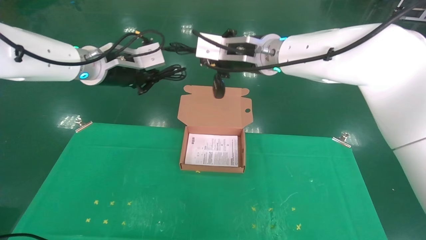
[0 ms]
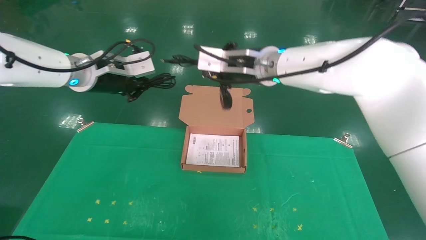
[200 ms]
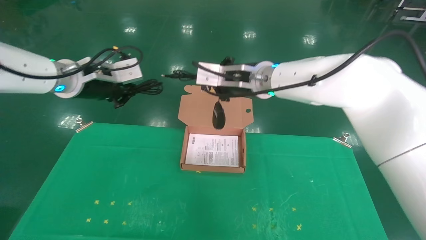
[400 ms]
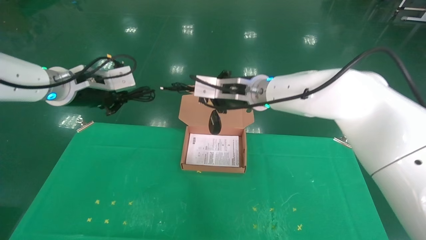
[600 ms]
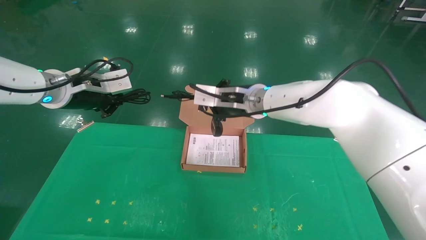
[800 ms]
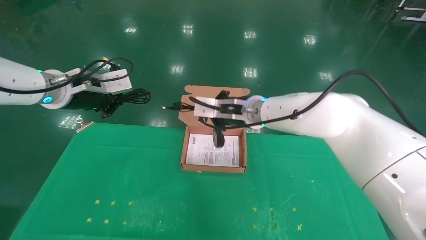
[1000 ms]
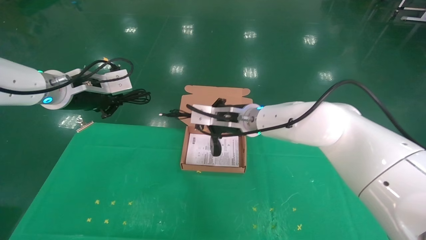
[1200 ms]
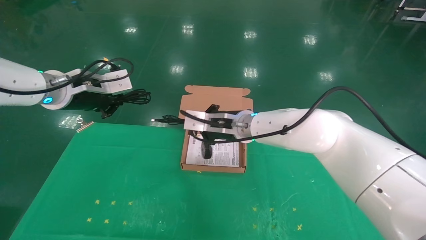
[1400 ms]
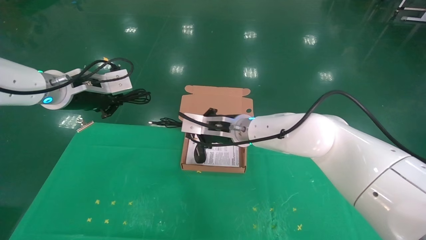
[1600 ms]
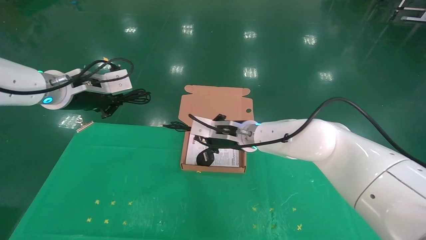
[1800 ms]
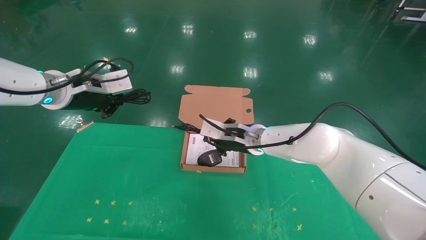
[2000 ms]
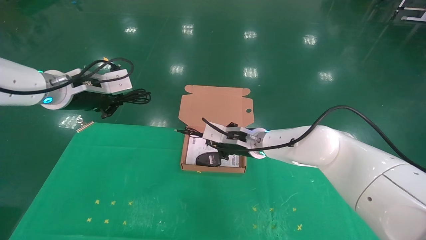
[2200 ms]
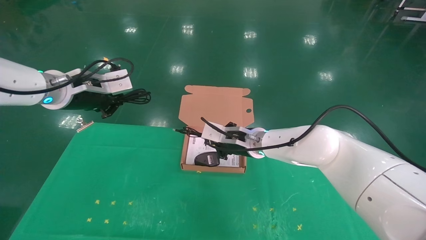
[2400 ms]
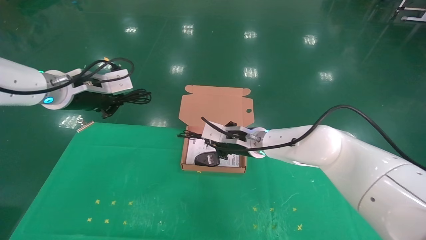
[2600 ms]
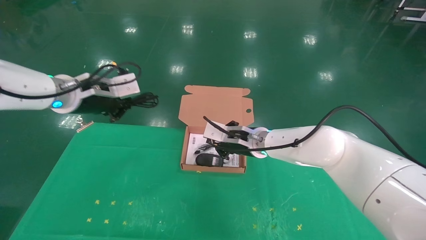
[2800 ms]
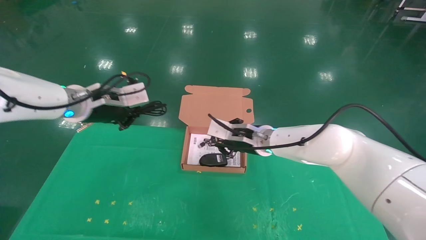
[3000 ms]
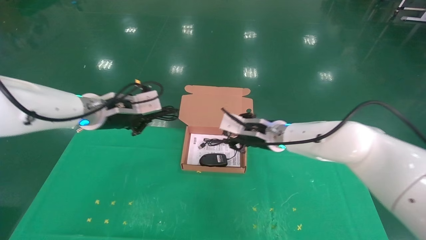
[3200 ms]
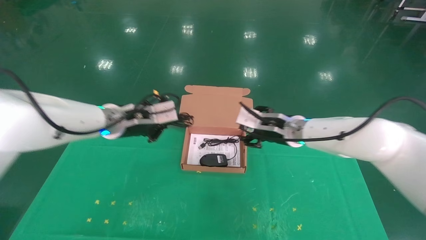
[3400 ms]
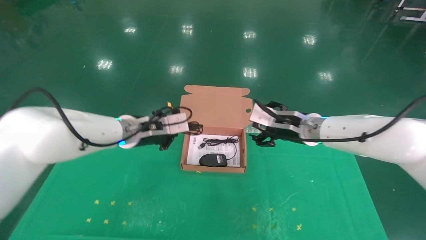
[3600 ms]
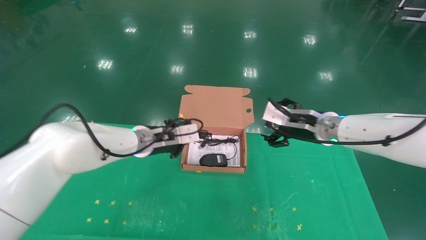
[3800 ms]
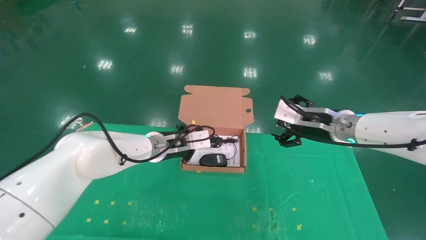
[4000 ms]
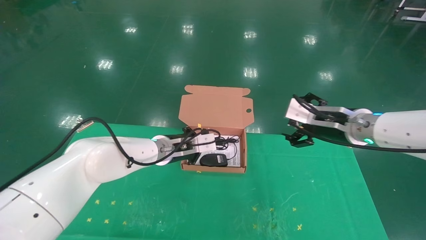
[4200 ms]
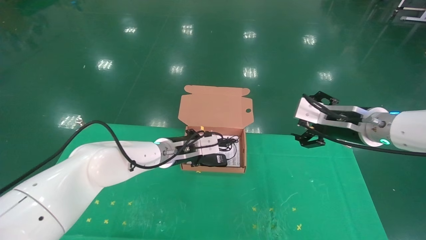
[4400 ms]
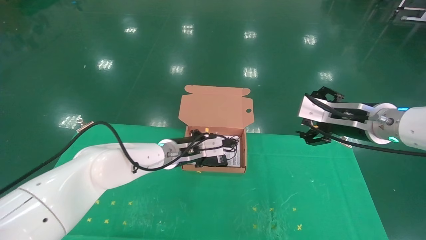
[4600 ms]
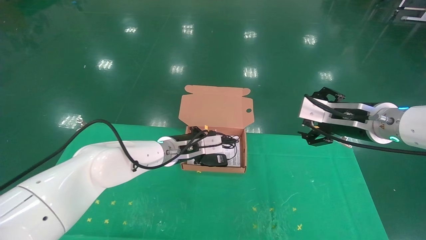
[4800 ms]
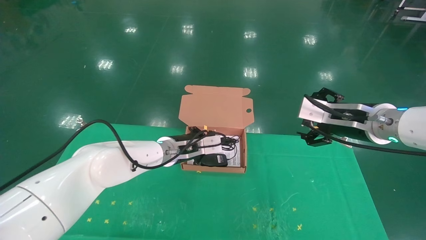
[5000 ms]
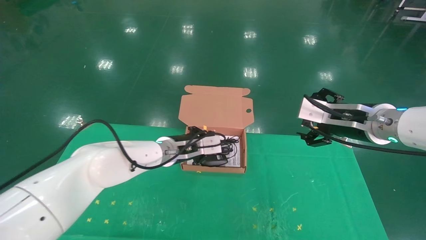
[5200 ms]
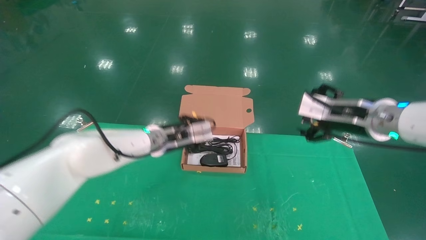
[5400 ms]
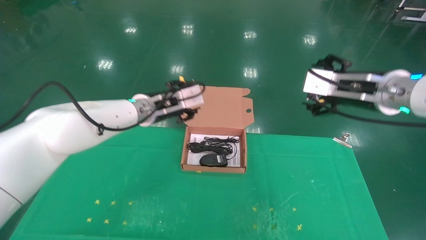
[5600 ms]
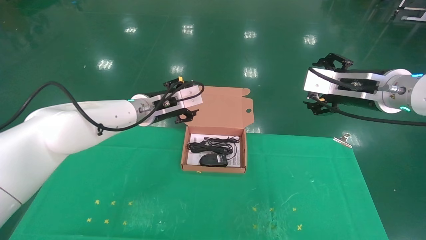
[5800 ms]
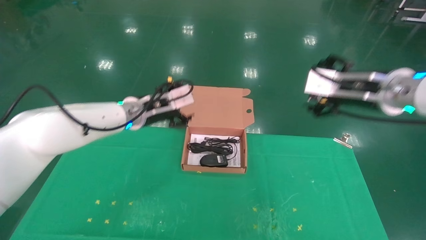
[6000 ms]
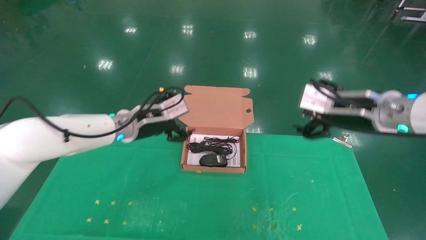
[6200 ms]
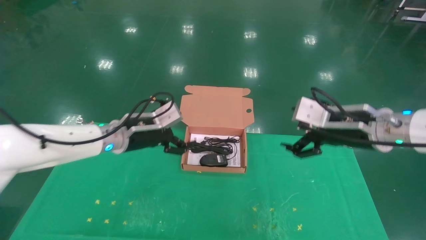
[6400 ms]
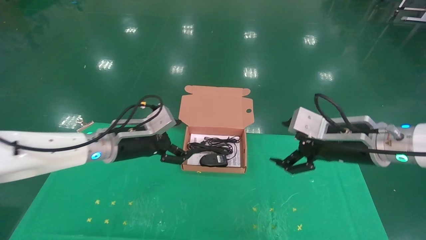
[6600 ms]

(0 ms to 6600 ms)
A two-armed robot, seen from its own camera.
Task of the whole recording: grasp data cable left put into box grasp mouse right put into box.
Step, 0 ms - 5400 ms: Place the mouse and power cord into the box.
0 ms - 1600 ms: The left gripper shifts approximately 5 cm to the left. Meanwhile the right gripper heads downward, covering roughly 15 cm.
1600 ms - 3200 ms: The left gripper heads to the right and downward, covering about 10 cm, while the right gripper goes approximately 10 cm to the right, and opens its fingers.
3200 ms - 5000 ms: The left gripper heads to the right, downward and forward, covering some 15 cm; the right gripper moves to the right, backward and upward, roughly 20 cm, and opens its fingers.
5000 ms - 6600 ms: The left gripper goes some 10 cm to the left and backward, and opens up.

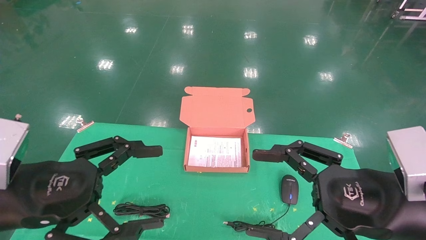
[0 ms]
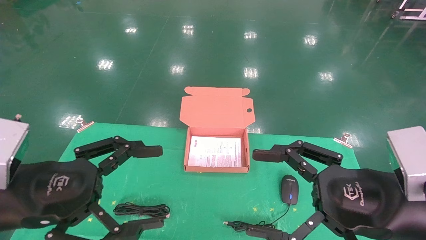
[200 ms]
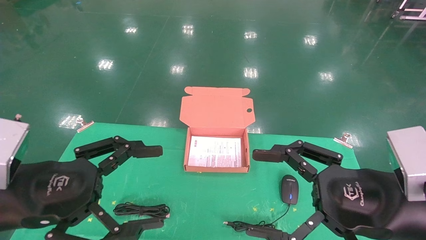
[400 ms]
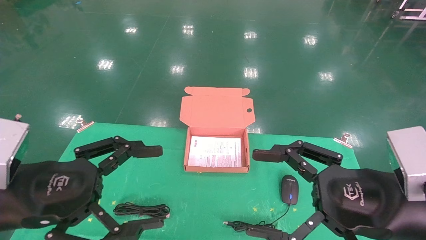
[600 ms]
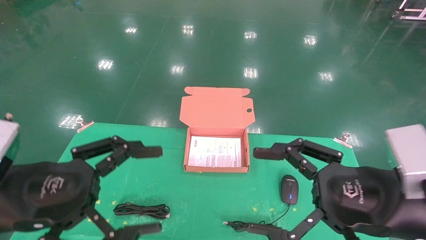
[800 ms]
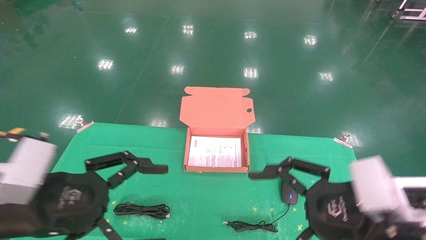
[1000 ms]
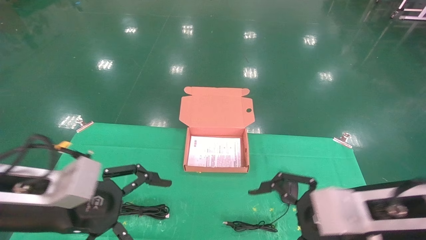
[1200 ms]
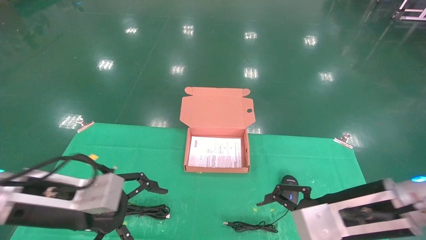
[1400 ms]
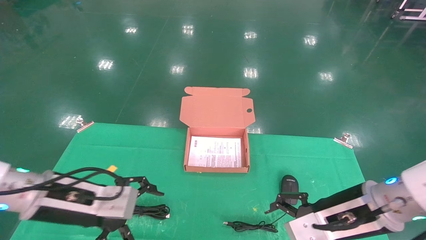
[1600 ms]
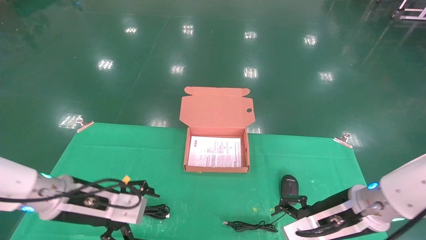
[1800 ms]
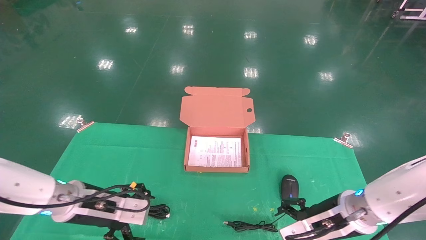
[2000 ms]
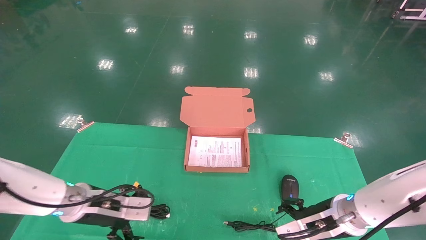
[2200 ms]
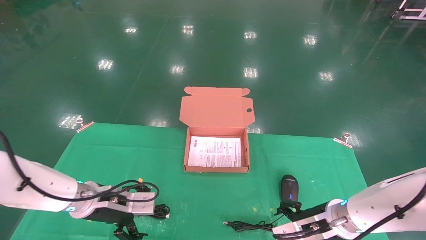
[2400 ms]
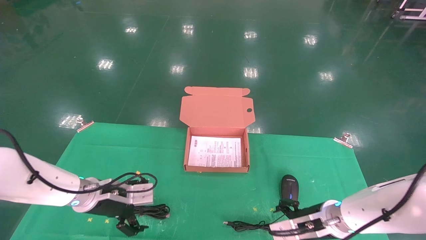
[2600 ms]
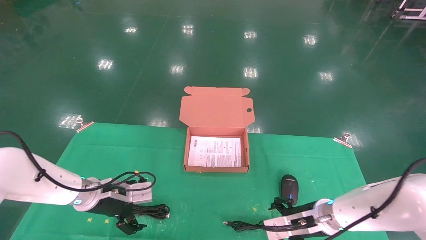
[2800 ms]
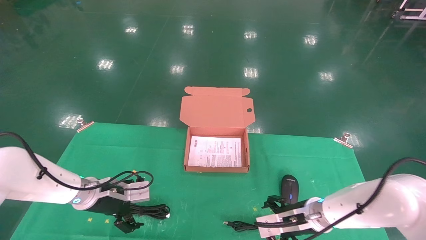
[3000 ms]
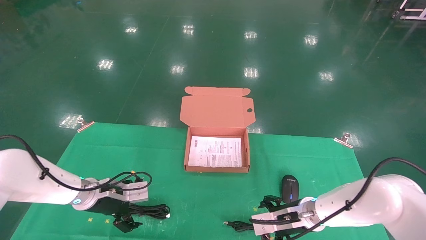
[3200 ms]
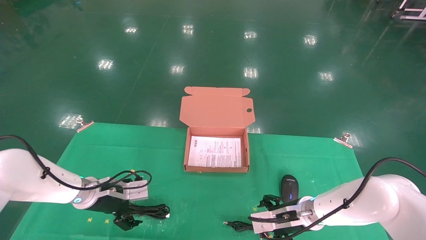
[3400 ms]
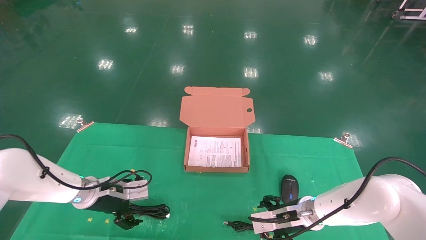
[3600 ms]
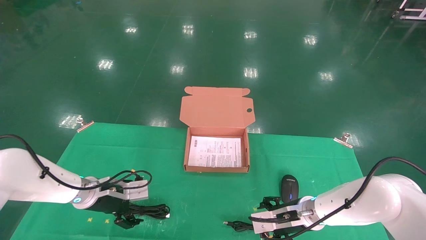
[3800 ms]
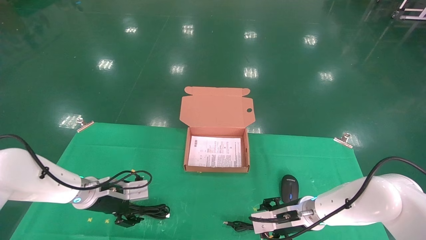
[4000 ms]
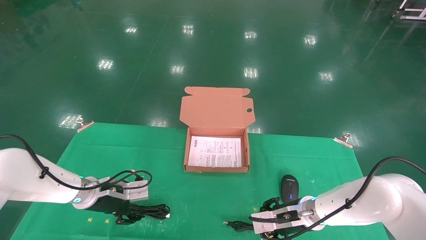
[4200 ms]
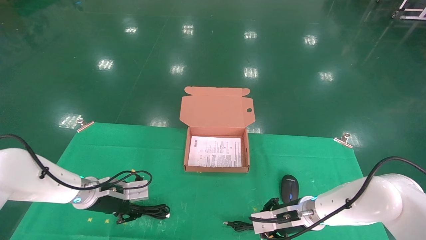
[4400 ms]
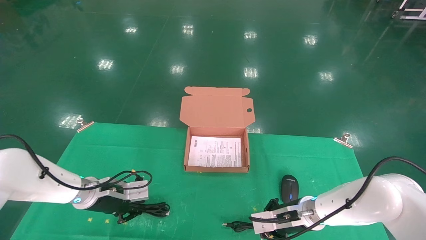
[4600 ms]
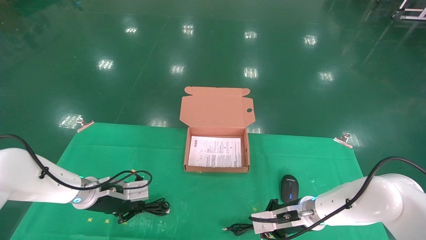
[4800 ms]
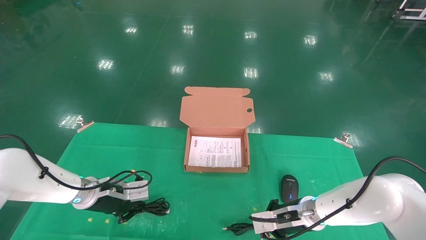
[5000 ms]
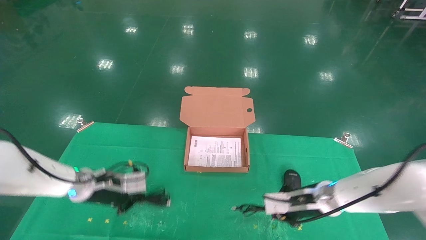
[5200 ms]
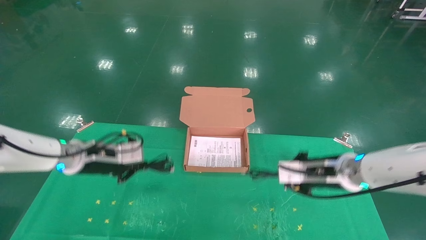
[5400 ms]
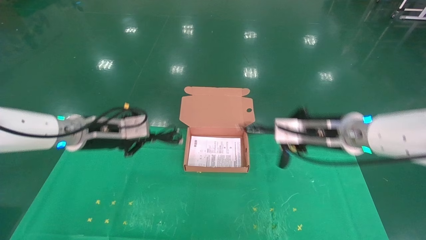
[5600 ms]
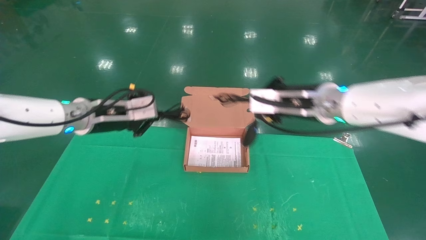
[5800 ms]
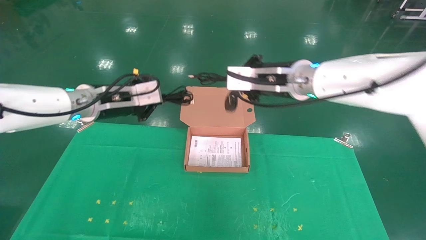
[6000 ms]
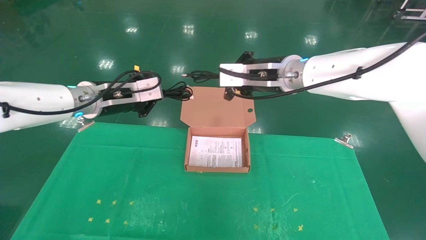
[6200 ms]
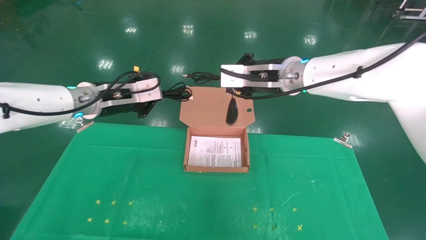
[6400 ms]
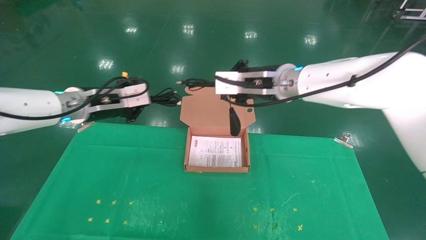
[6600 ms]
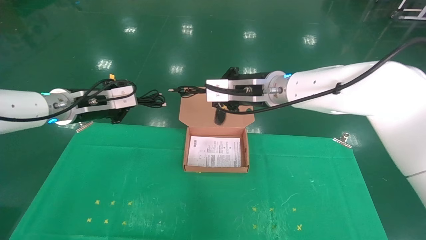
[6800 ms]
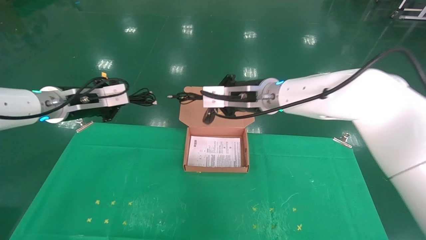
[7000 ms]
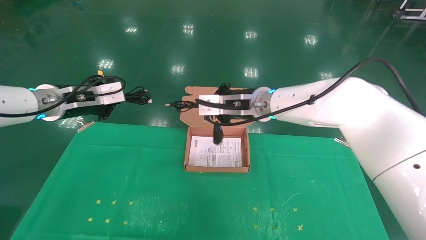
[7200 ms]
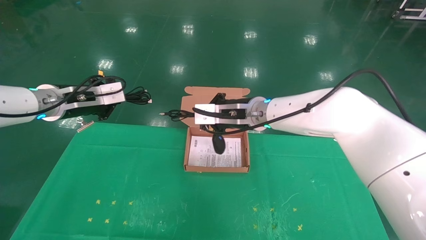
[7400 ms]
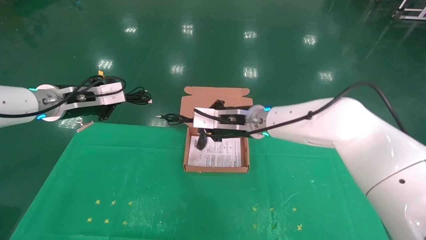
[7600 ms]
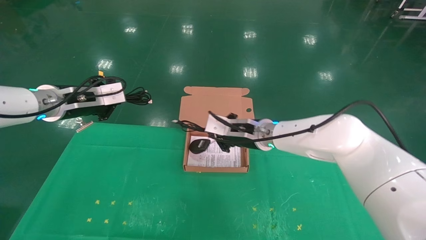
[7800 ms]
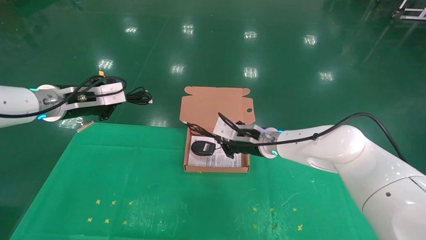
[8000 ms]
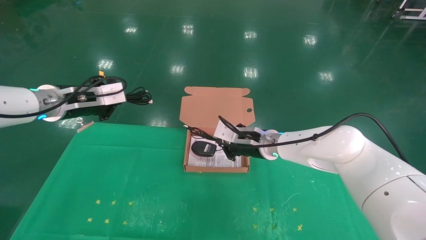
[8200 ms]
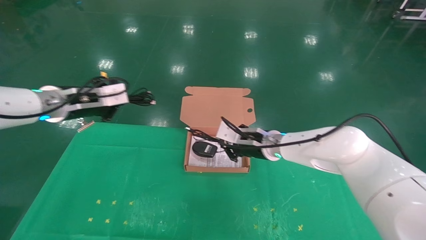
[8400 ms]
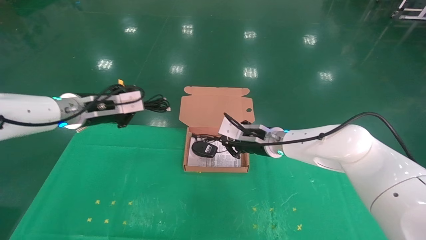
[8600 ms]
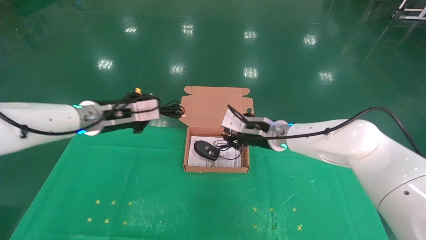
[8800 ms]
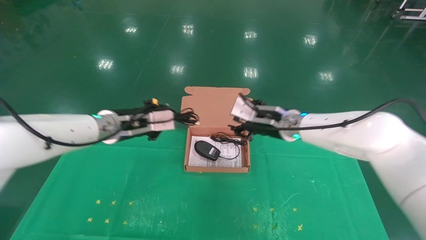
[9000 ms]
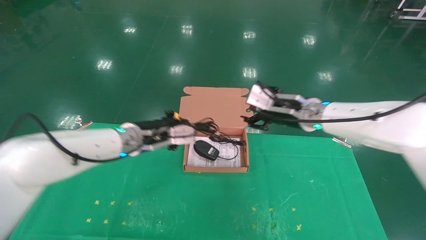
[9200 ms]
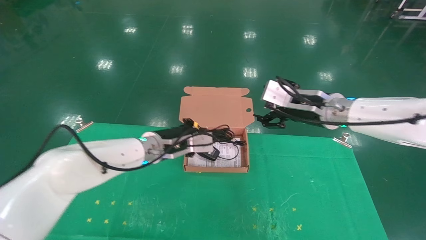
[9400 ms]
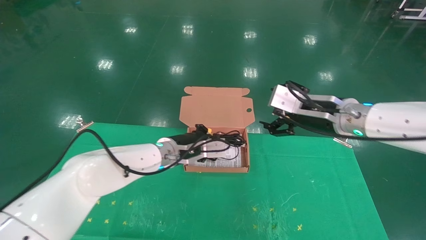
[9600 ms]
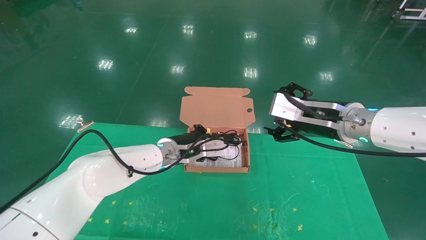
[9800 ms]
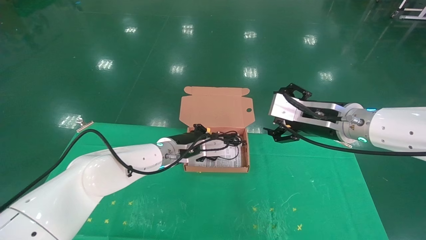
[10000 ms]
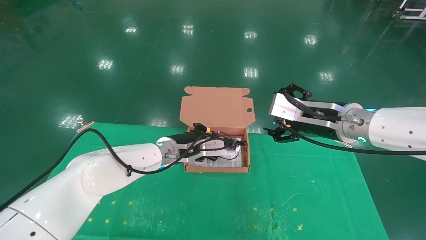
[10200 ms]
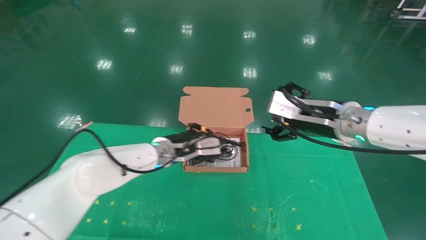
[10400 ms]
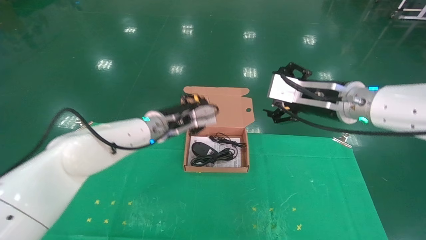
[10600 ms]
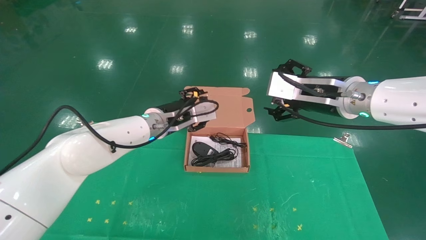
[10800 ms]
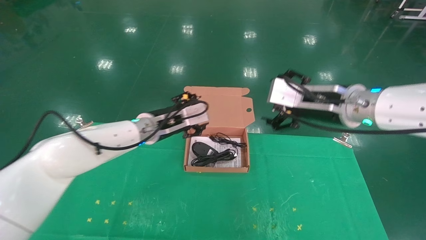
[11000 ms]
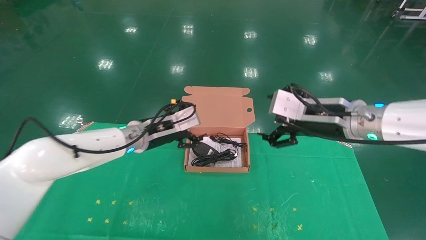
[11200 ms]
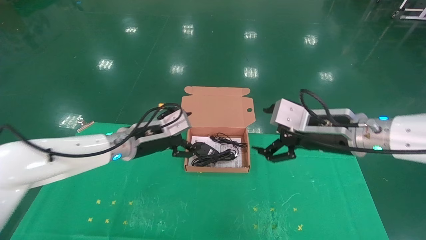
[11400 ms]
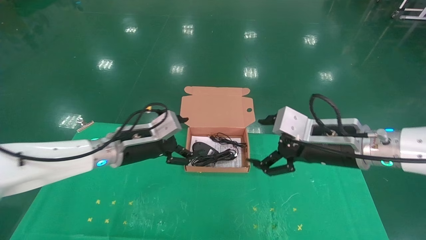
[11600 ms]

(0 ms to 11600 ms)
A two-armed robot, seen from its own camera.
Task of the whole recording: grasp data cable left put into box grasp mouse right put into box.
Step, 1000 ms - 4800 ms: Grab and pick up both the mouse and power cord from the accessory packaging area at the same time.
Step, 5000 ms - 10200 ms: Place the mouse and power cord into the box.
0 ms - 1400 ms: The two grippers go some 5 cm forward.
1400 ms - 2800 ms: The right gripper is displaced downward and forward by some 20 cm. The left gripper travels forward and downward by approximately 20 cm.
2800 ms - 4400 ms: The left gripper closes. Meanwhile the right gripper closes its fingers.
4400 ms - 5800 ms: The two grippers go about 20 cm upward. The right gripper closes up, while the left gripper closes.
5800 ms - 7200 ms: The right gripper is displaced to the left and forward by approximately 10 cm; the left gripper is displaced to the left by roughly 5 cm.
7200 ms - 8800 ms: The left gripper shifts approximately 10 cm to the right. The right gripper goes roughly 10 cm downward and to the right.
8800 ms - 10200 ms: The left gripper travels to the right and downward by about 15 cm, while the right gripper is displaced backward, to the right and upward by some 15 cm, and opens.
10200 ms - 11600 ms: The right gripper heads backward, covering some 5 cm; the left gripper is displaced to the left and backward by some 10 cm, and opens its fingers.
